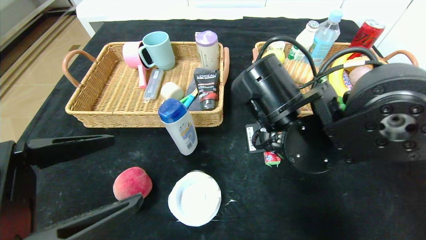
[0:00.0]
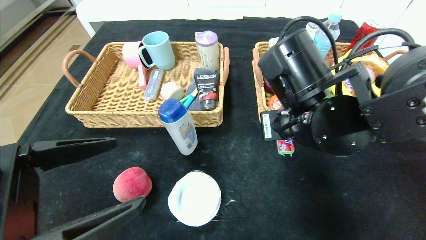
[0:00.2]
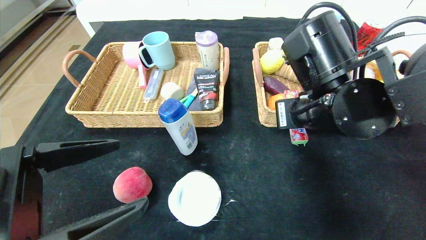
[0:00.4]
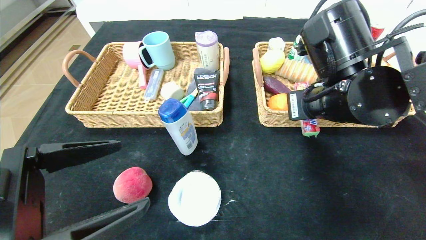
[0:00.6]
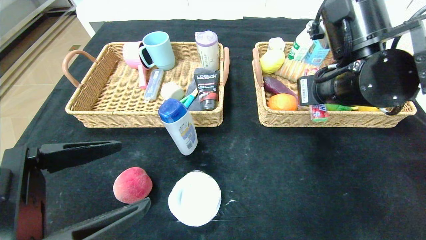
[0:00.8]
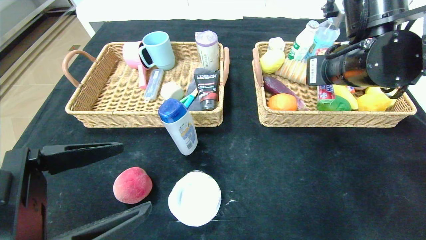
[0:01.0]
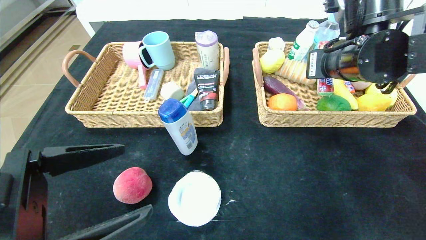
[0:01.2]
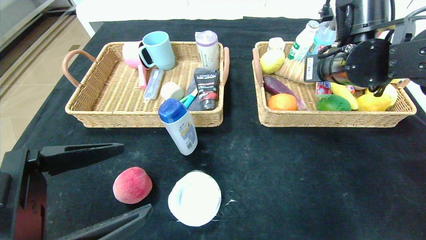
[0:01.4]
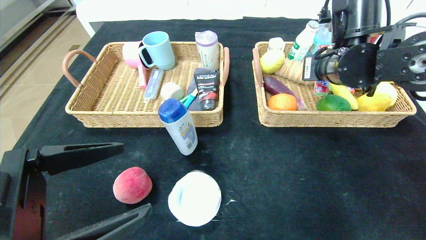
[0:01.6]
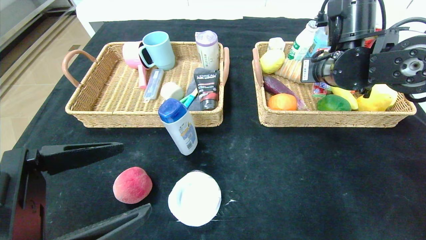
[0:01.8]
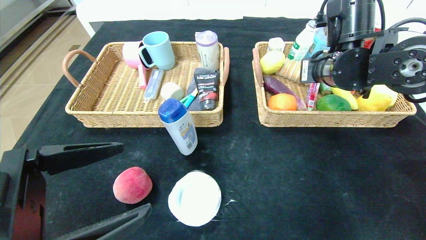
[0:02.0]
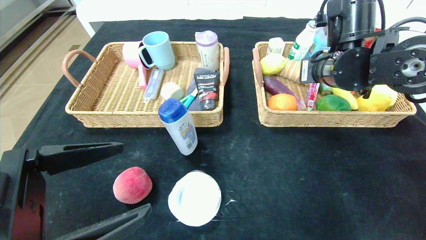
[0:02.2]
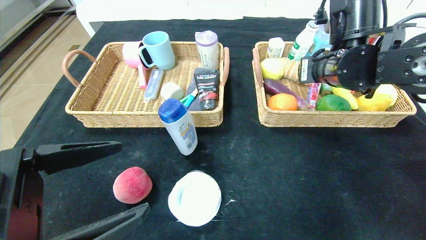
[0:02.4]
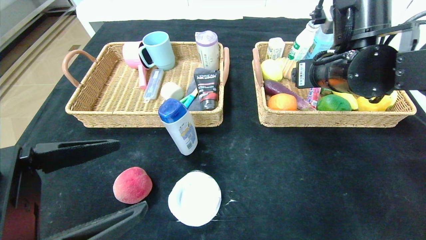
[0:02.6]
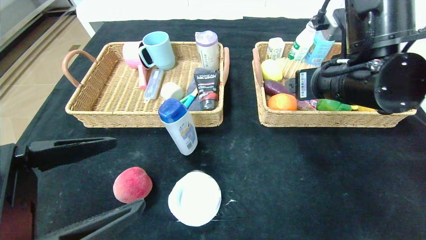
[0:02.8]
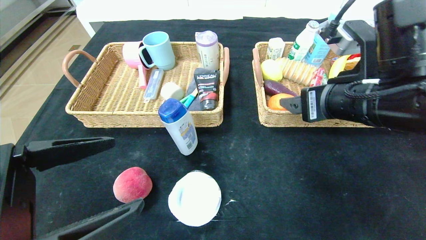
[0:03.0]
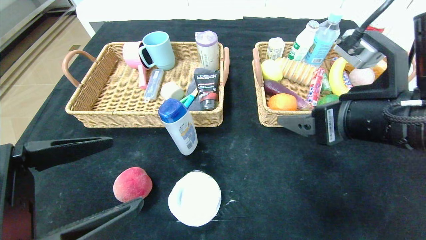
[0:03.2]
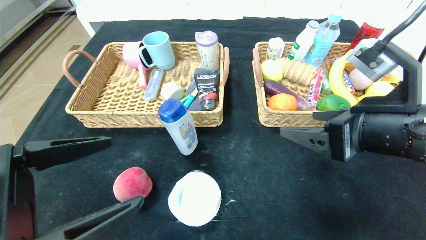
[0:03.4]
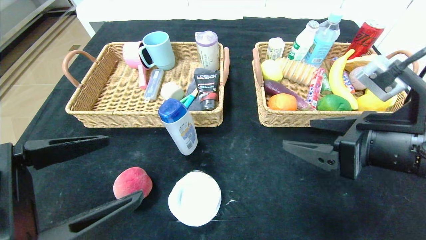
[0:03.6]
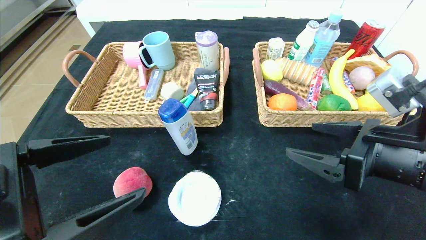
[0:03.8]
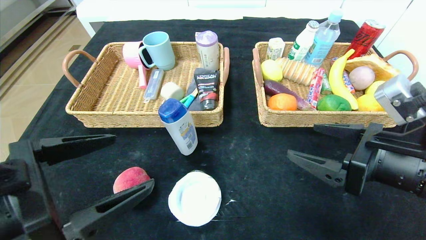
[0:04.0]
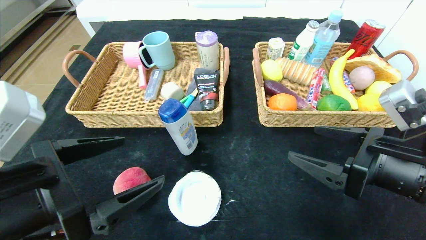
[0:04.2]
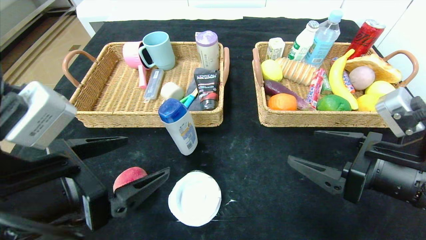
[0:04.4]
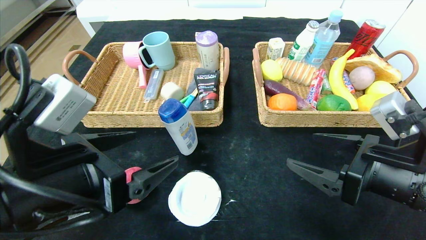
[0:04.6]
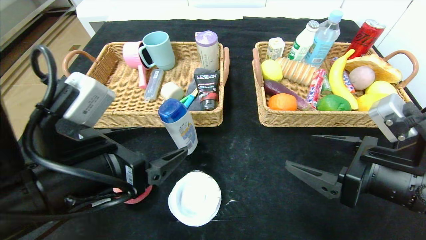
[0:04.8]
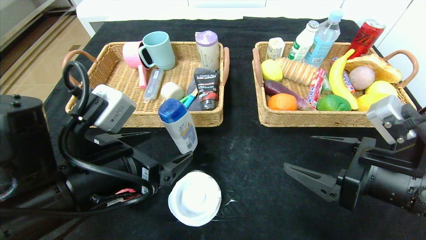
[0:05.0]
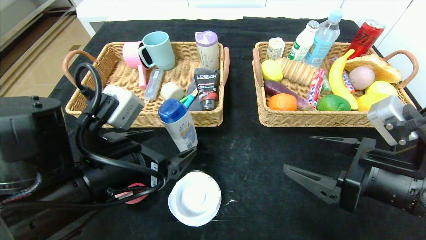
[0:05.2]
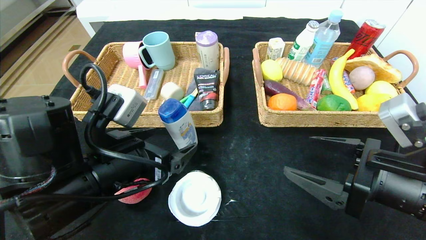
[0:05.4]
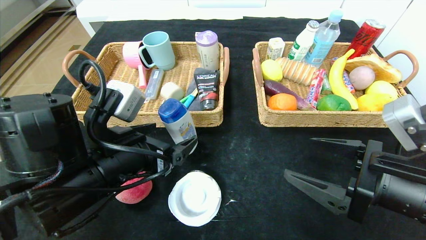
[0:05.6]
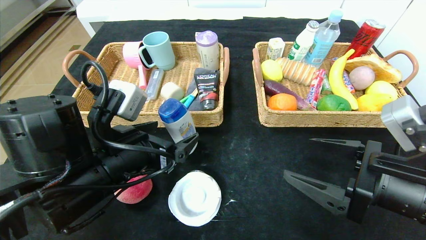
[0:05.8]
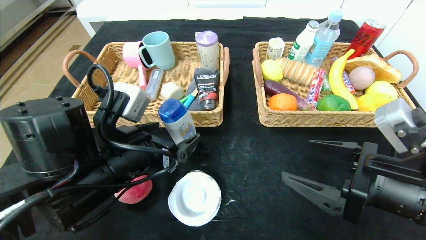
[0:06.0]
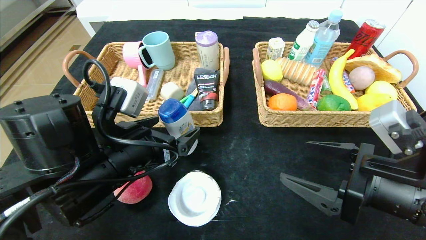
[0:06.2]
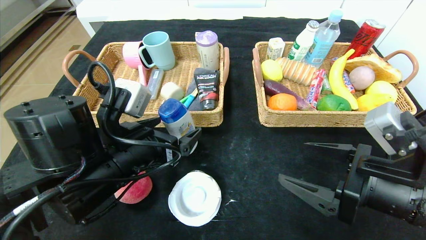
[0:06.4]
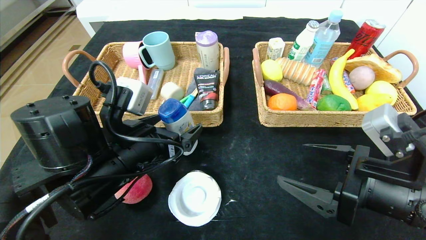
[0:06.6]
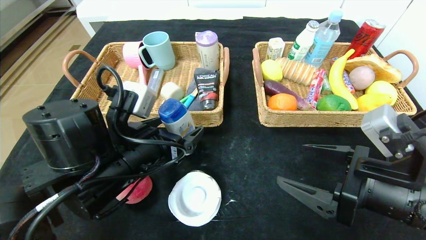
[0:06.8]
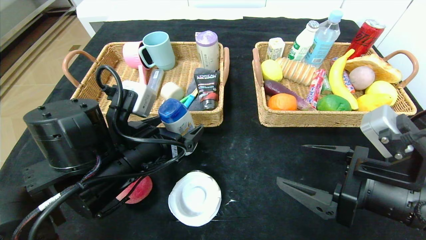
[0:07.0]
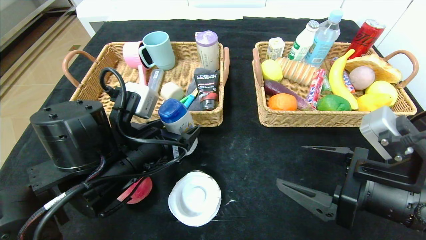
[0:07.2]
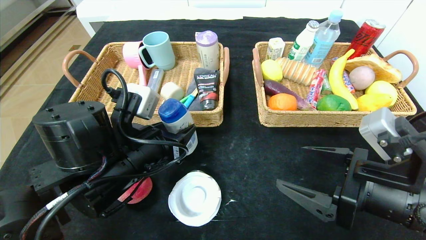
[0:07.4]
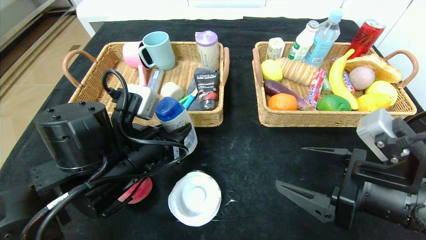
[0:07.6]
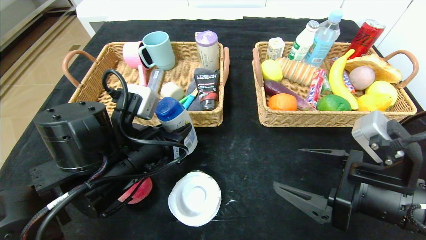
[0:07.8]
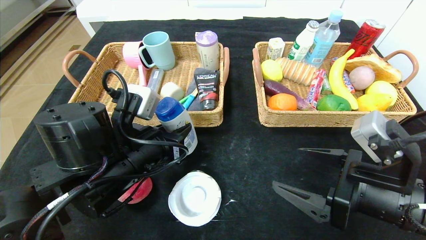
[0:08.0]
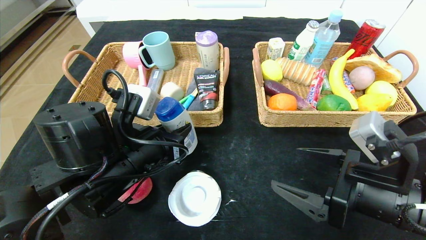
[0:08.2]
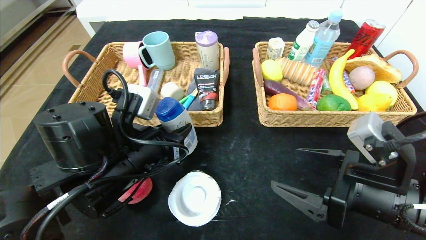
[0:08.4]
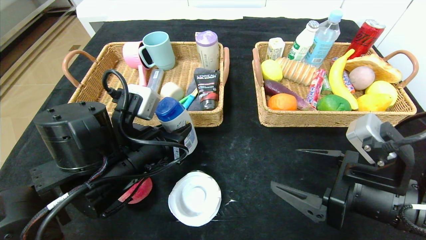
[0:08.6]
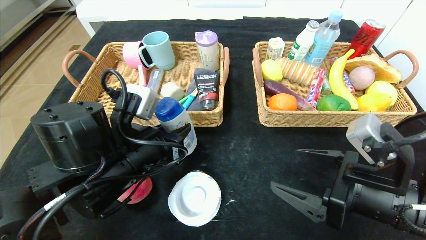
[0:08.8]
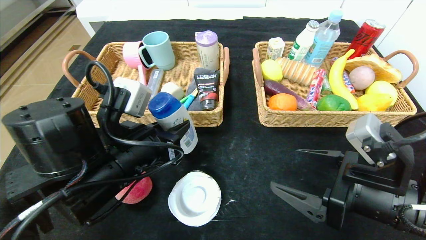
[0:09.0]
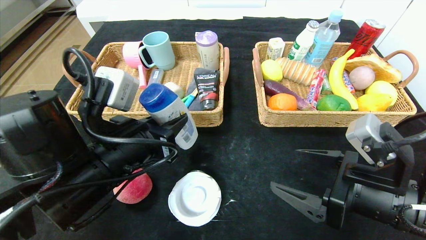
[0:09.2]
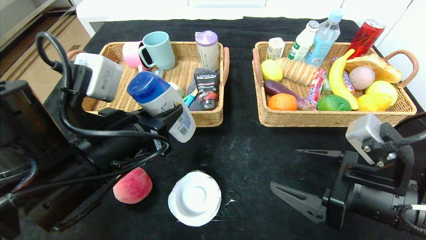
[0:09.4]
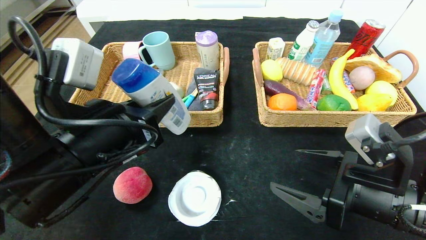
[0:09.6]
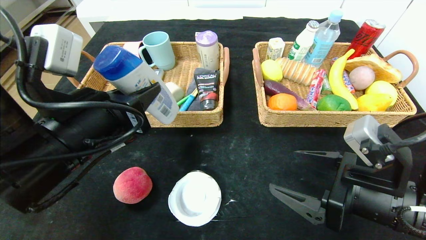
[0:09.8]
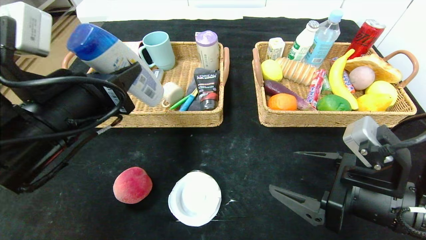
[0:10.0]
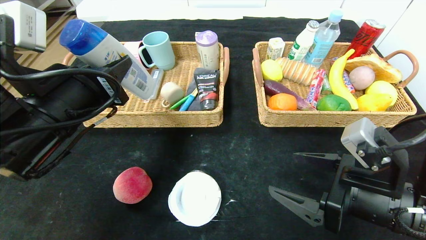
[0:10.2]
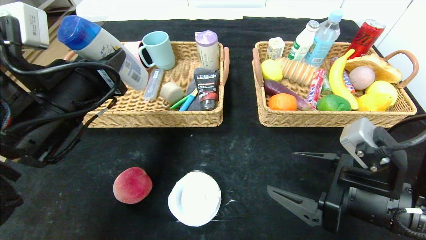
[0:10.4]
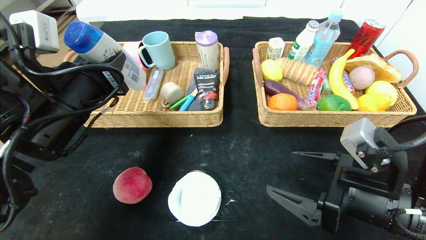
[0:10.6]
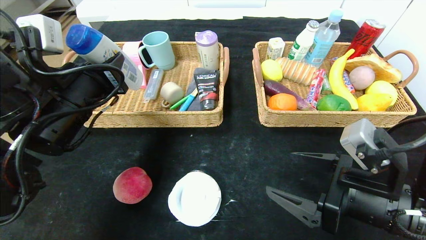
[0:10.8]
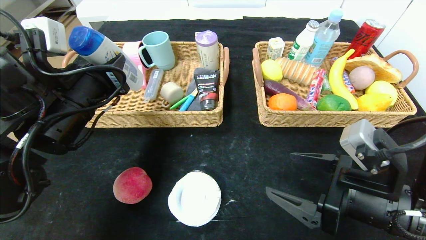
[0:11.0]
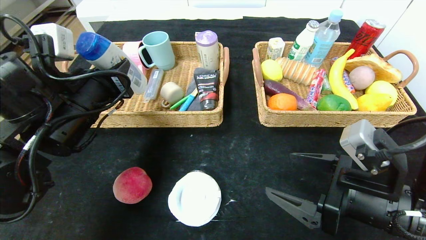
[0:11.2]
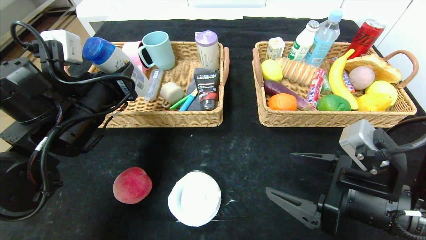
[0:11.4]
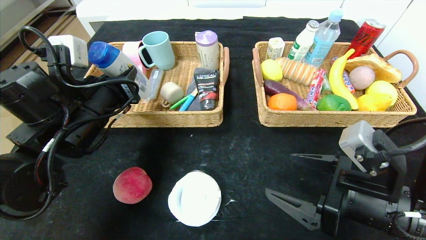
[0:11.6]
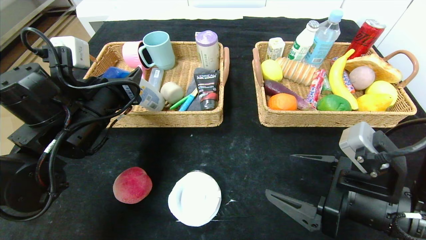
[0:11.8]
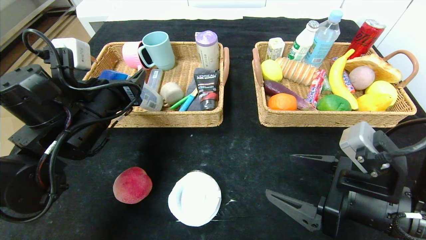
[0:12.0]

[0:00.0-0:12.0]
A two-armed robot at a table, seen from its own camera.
Step, 0:00.0 to 0:03.6: Pick up the fruit fudge and put it in the right basket.
0:00.0 to 0:01.6: The right gripper travels to the right, forward and upward by roughly 15 cm.
0:01.6 to 0:03.0: The right gripper travels backward by about 10 cm, and opens up.
0:03.0 to 0:04.4: The right gripper heads downward, to the right and backward, covering about 10 cm.
0:04.4 to 0:06.0: The left gripper shifts roughly 10 cm forward.
0:06.0 to 0:07.6: The left gripper closes up.
0:07.6 to 0:09.0: The grippers stay close to where they were, moving slightly.
0:09.0 to 0:10.4: The left gripper is displaced to the left and upward by about 10 cm.
0:10.4 to 0:12.0: The left gripper goes approximately 5 cm forward, and opens its fingers.

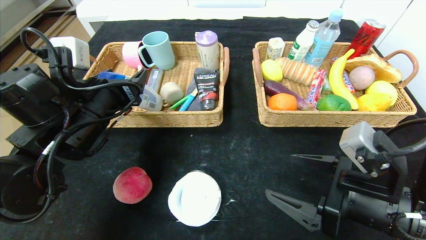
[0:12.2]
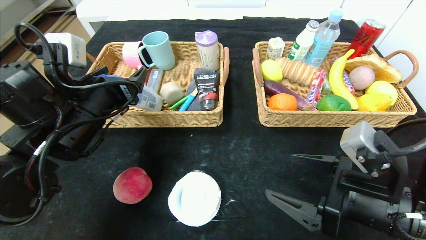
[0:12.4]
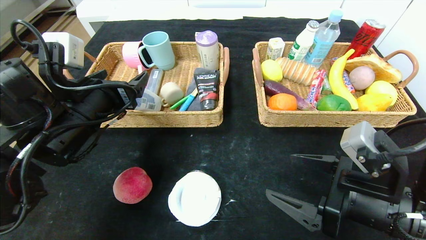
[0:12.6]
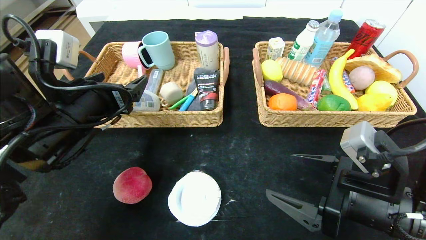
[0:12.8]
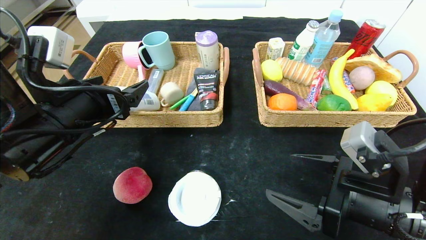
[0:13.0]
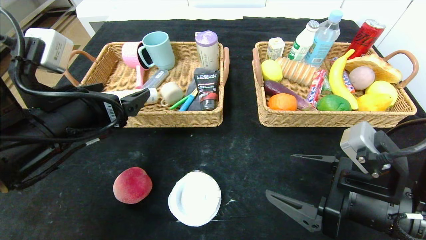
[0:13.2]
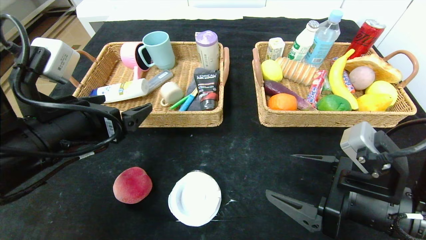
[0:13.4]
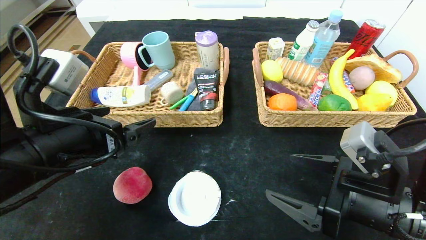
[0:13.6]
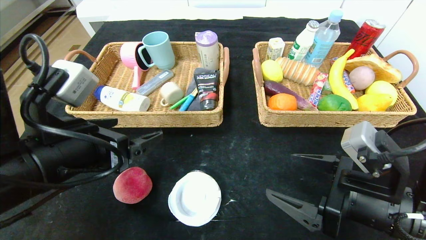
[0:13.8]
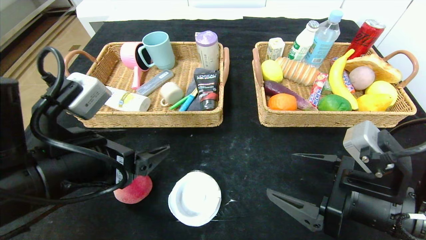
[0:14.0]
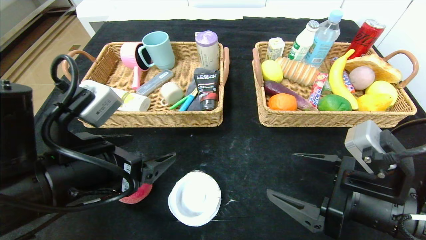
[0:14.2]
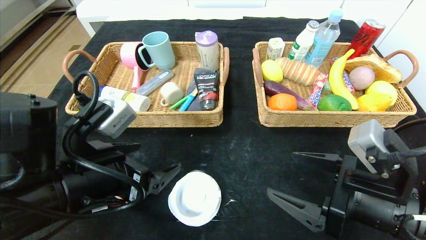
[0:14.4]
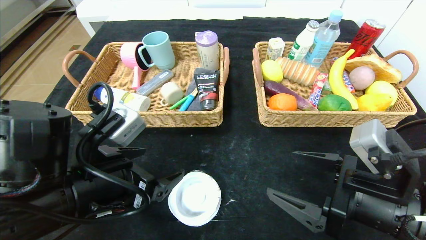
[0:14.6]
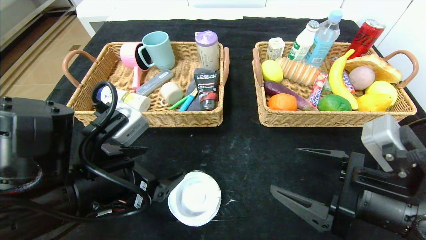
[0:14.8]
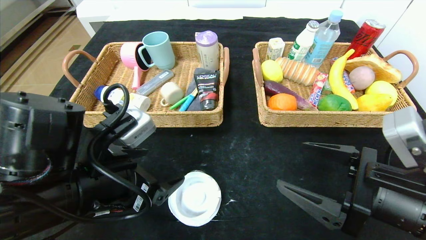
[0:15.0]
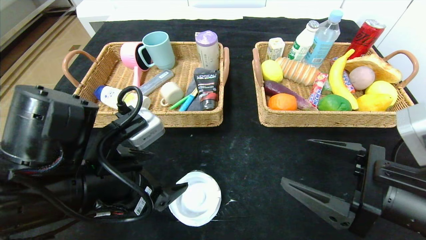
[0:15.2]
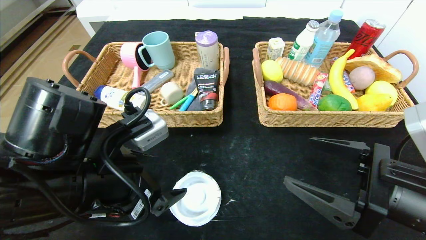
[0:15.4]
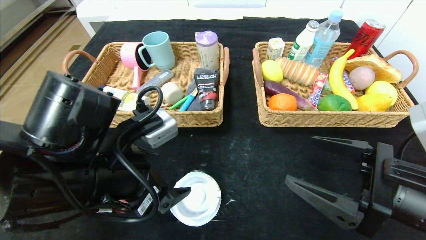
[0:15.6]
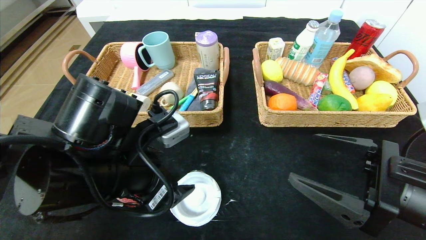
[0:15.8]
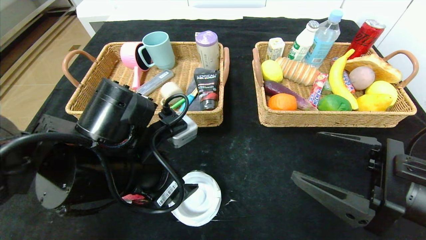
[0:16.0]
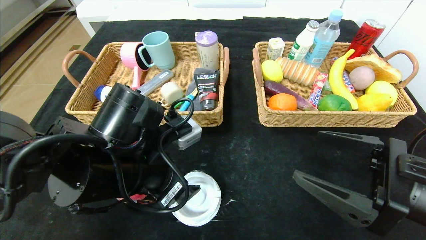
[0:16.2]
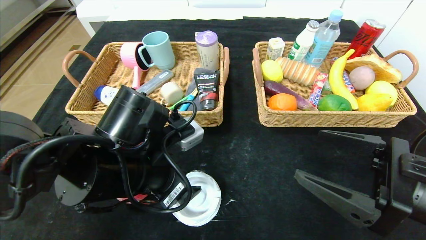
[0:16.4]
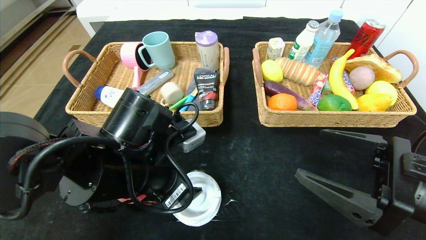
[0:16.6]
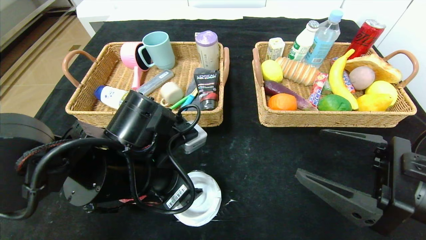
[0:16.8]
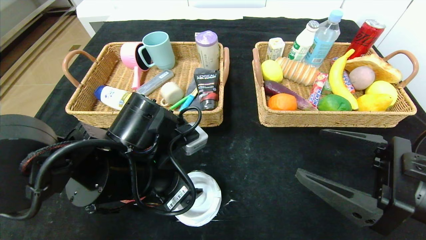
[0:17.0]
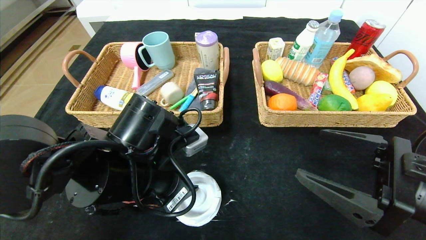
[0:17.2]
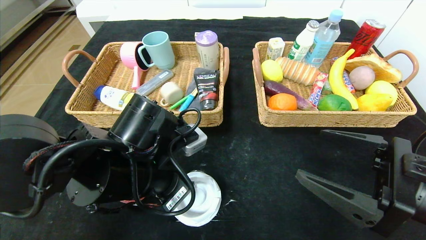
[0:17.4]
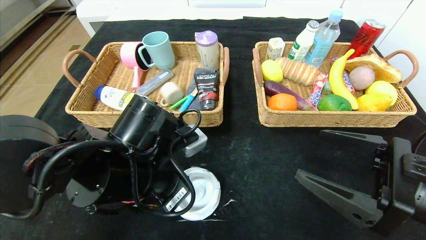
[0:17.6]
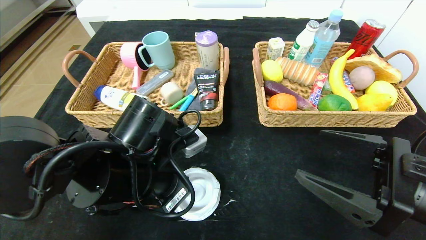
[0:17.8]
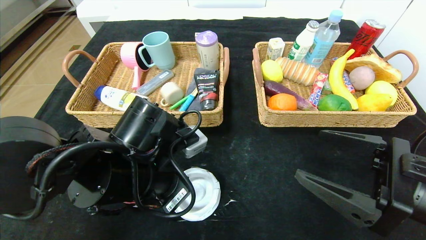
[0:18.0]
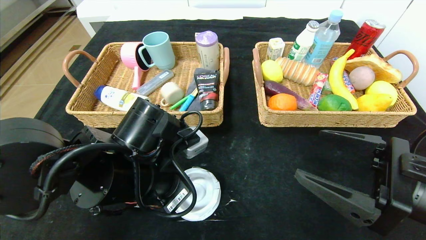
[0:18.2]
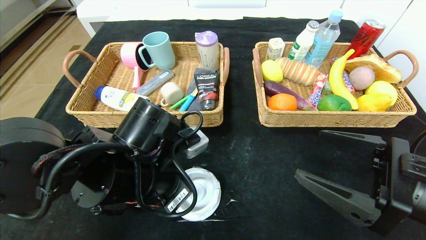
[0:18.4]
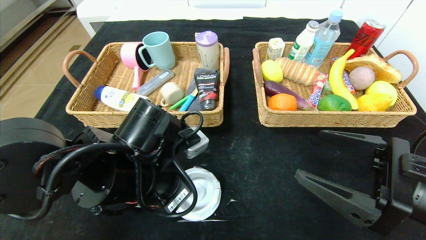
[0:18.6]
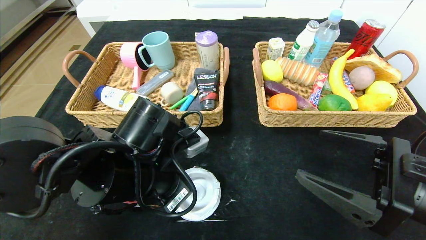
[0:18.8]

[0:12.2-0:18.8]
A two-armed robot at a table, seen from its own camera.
0:12.2 to 0:13.8: The left gripper is displaced backward by roughly 10 cm.
0:15.4 to 0:17.2: The left gripper shifts by about 5 cm, and closes its fingers.
0:17.2 to 0:18.8: The left gripper closes.
